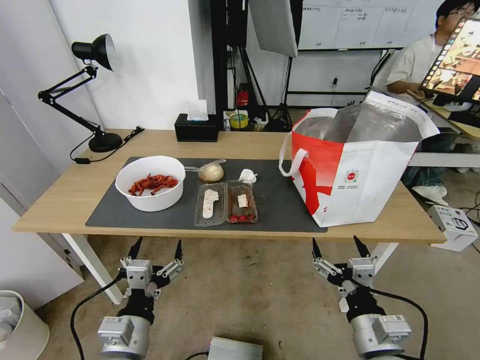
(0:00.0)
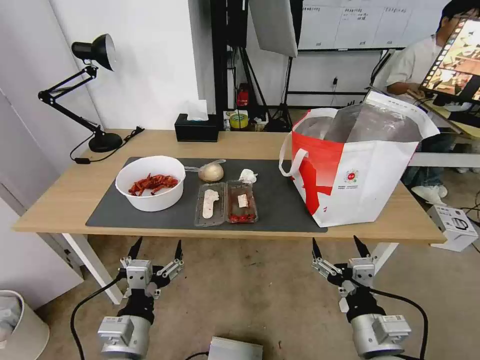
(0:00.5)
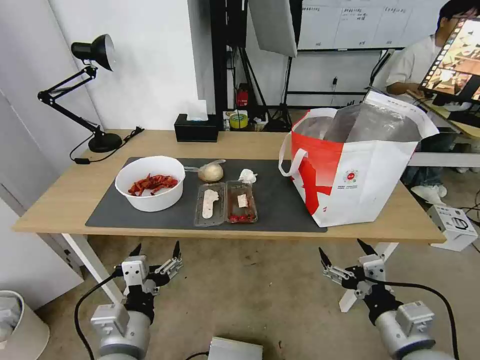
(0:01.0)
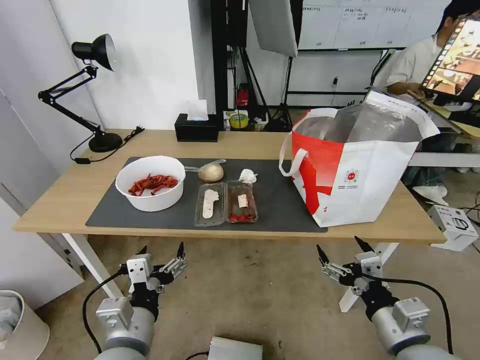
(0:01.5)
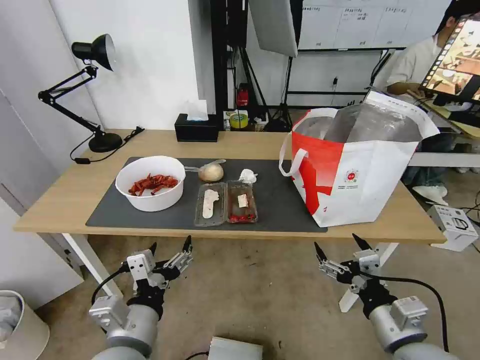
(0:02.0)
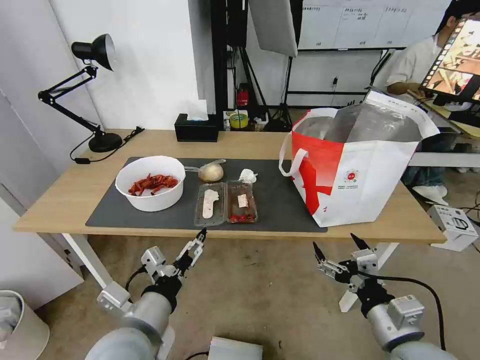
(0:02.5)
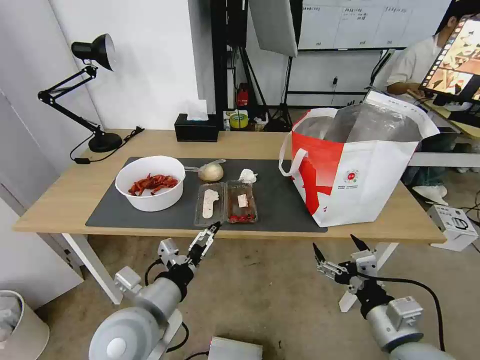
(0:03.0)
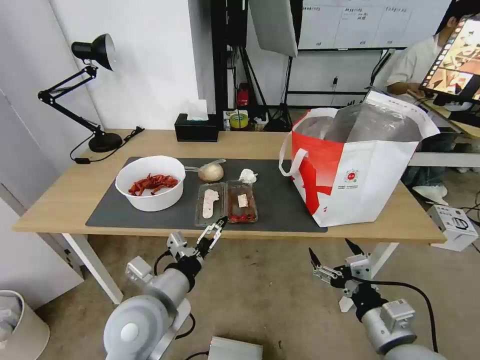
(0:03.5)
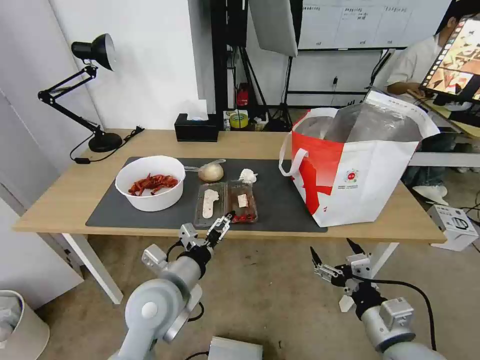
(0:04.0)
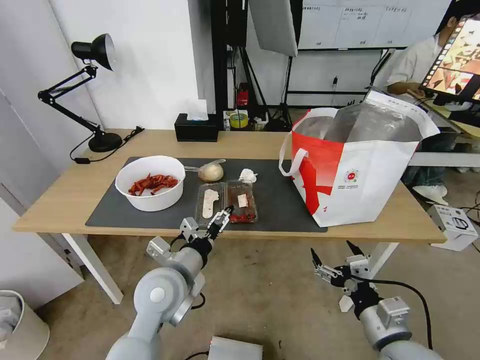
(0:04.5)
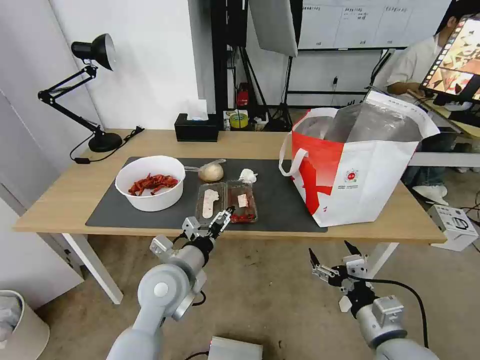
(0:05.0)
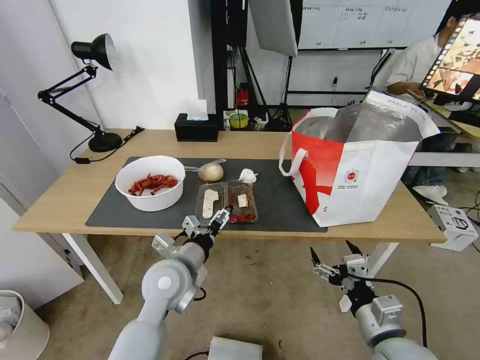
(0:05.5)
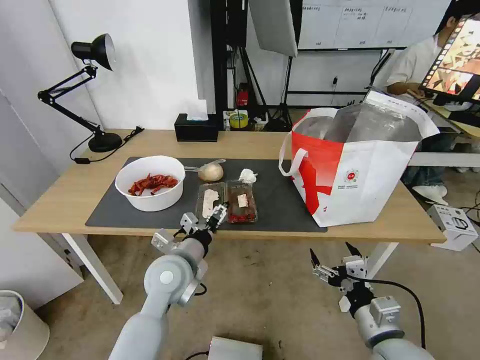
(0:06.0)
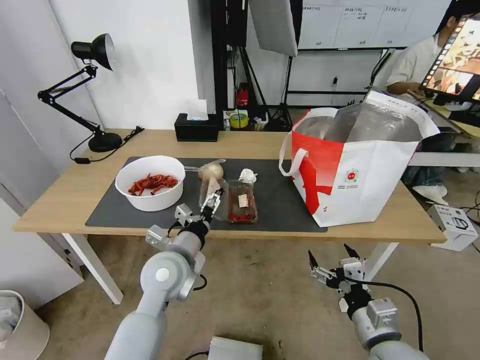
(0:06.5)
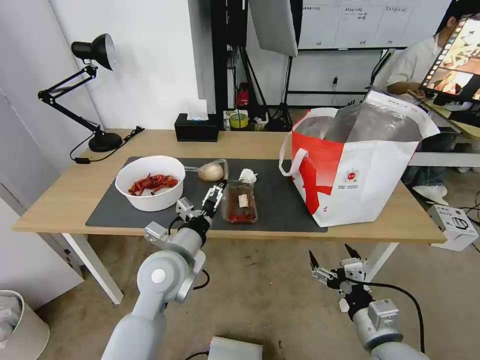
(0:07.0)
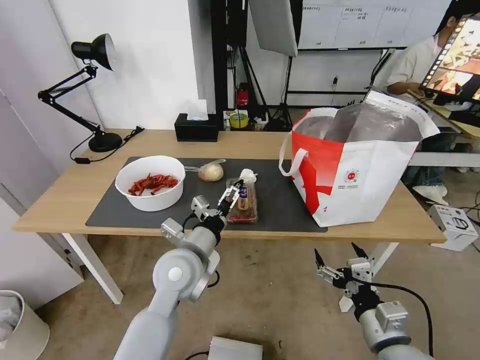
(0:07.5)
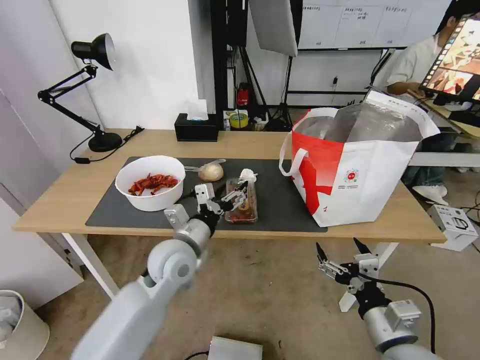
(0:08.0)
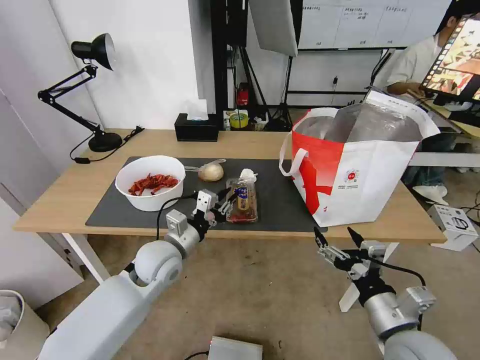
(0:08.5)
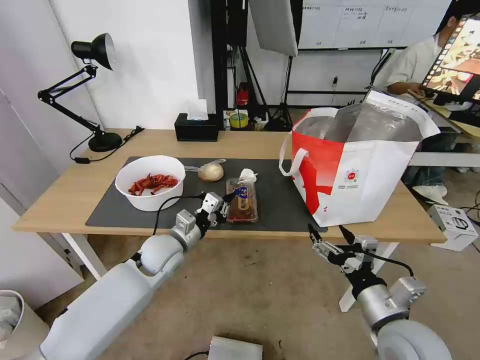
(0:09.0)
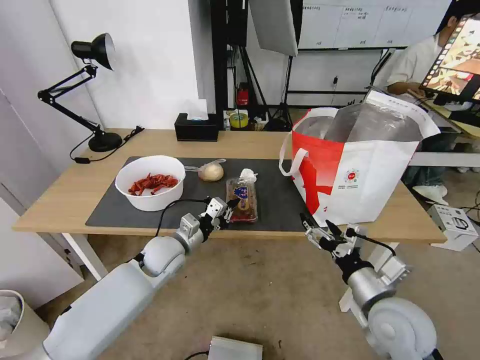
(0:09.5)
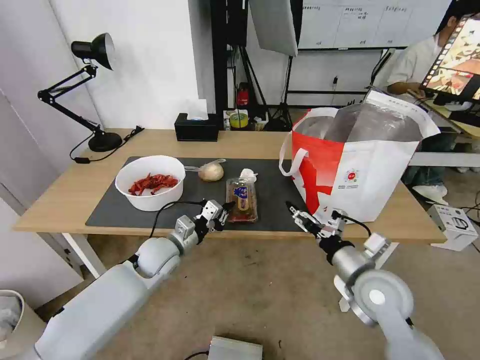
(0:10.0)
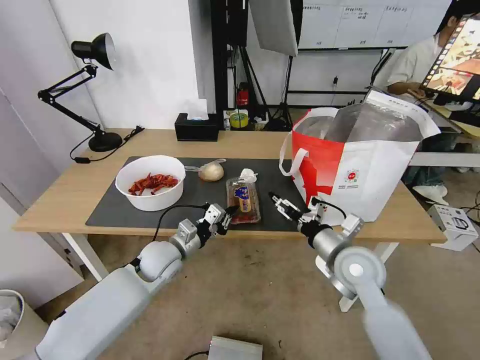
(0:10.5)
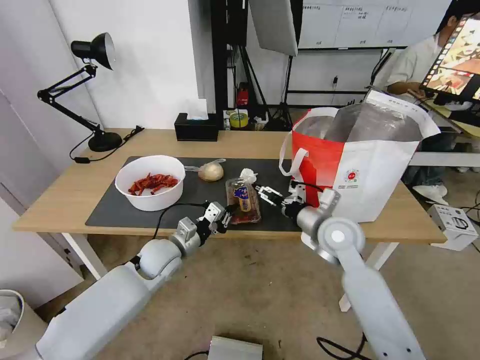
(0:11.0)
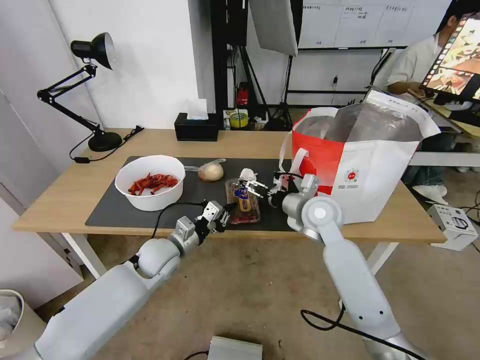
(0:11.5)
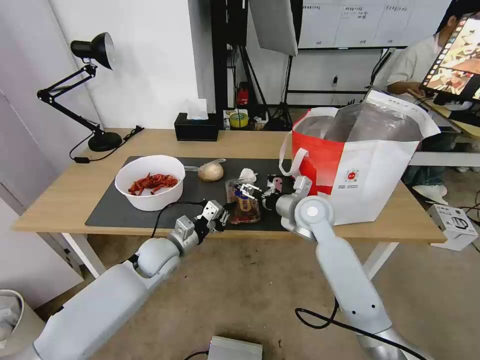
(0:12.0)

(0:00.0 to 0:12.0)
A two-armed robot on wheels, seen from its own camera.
Task of the whole recording: Pick up the trash from the table and place it into the takeout bag.
0:02.0 - 0:04.0: The left gripper travels forward by about 10 cm.
0:04.0 - 0:06.0: The left gripper moves forward, roughly 5 cm.
0:08.0 - 0:10.0: The right gripper moves forward, about 10 cm, while the left gripper heads downward and to the left, covering roughly 10 cm, and closes its fingers.
0:10.0 - 0:12.0: The right gripper moves forward and to the left, some 20 cm.

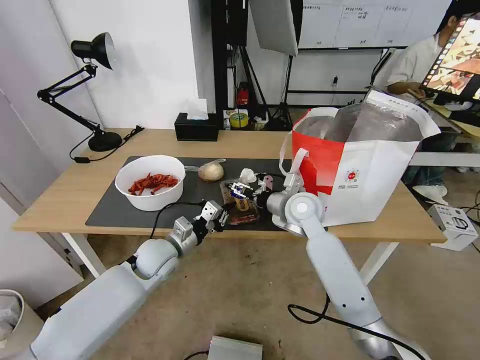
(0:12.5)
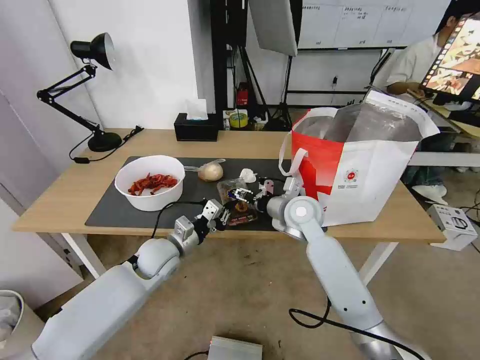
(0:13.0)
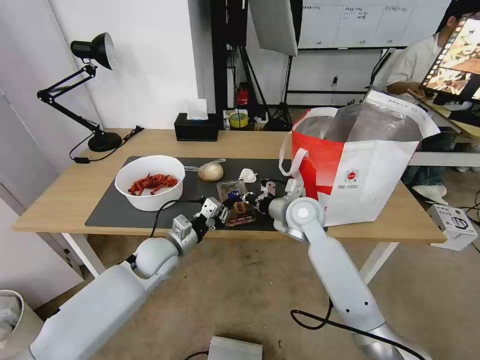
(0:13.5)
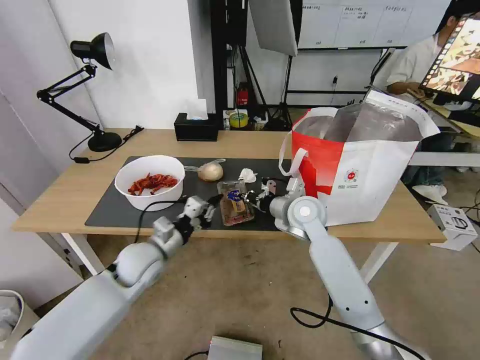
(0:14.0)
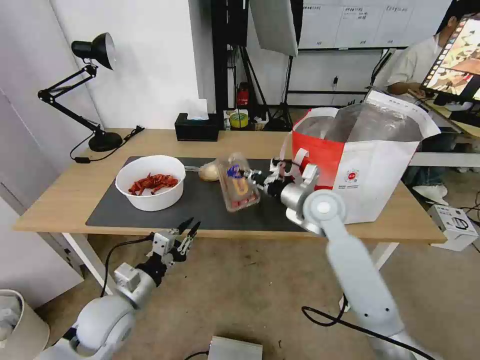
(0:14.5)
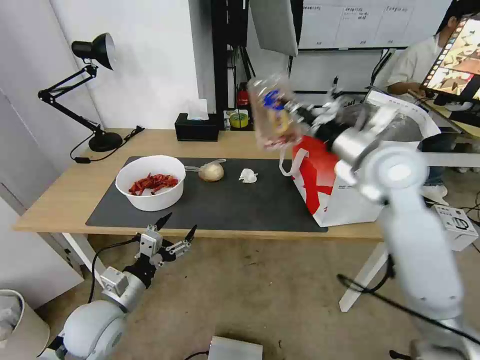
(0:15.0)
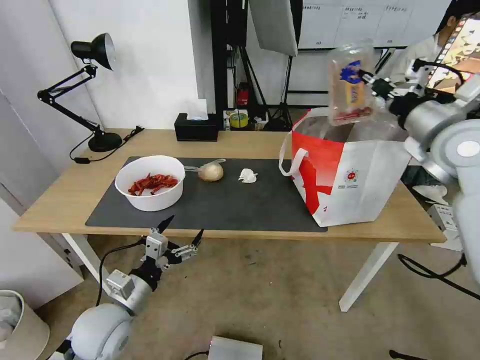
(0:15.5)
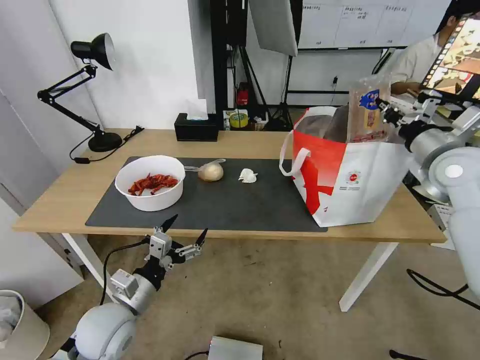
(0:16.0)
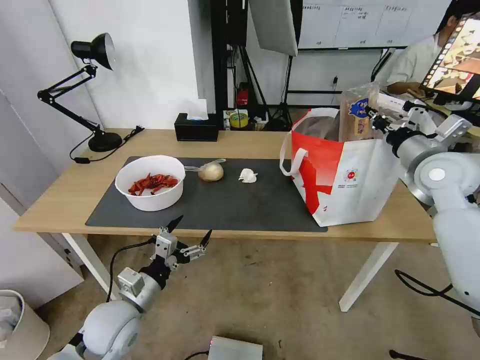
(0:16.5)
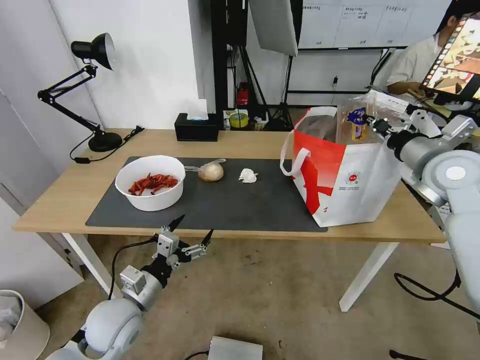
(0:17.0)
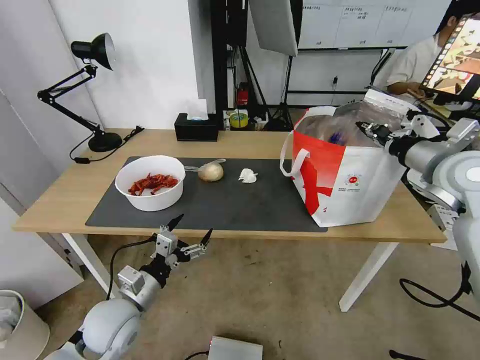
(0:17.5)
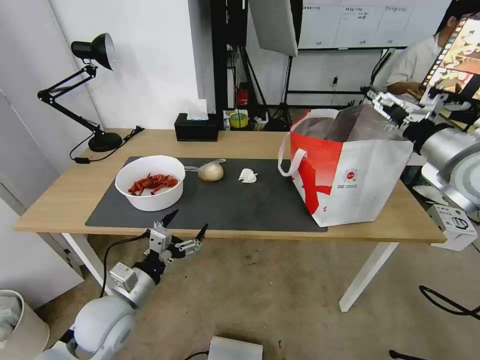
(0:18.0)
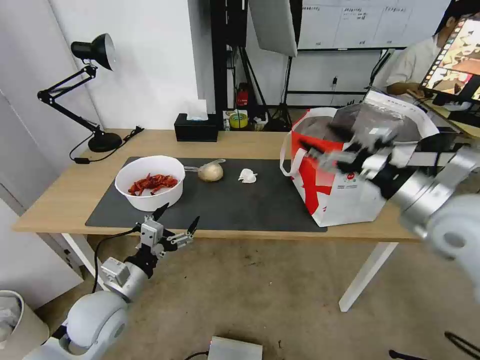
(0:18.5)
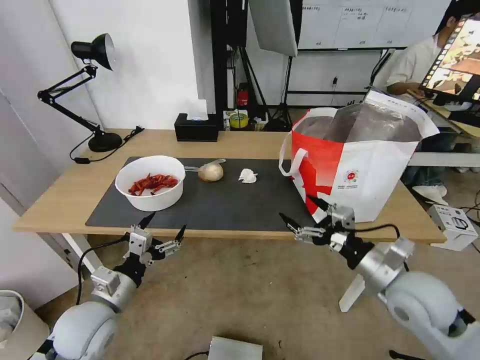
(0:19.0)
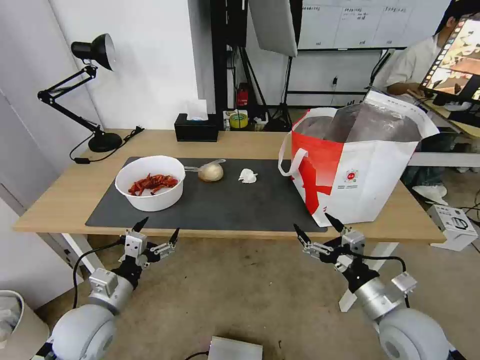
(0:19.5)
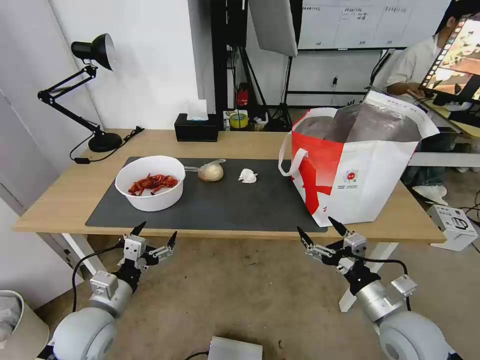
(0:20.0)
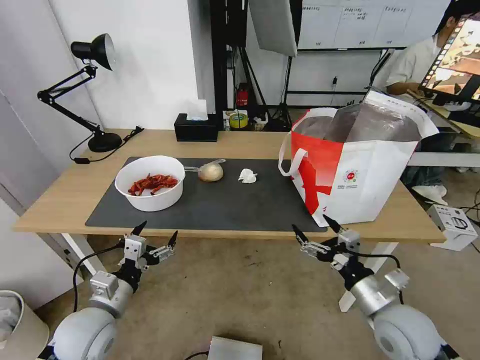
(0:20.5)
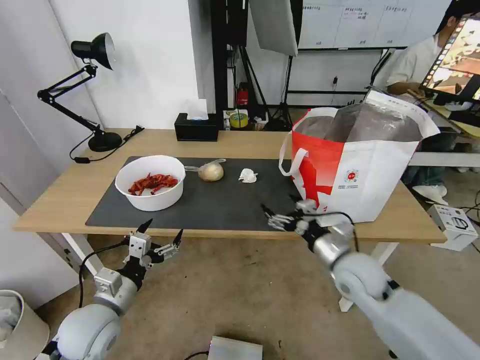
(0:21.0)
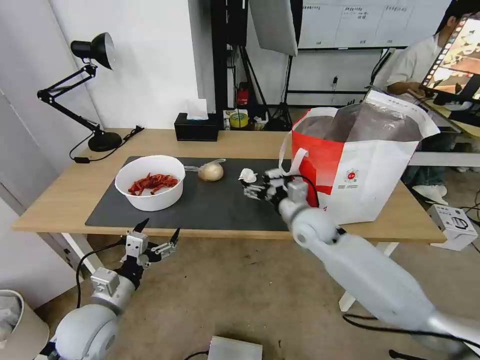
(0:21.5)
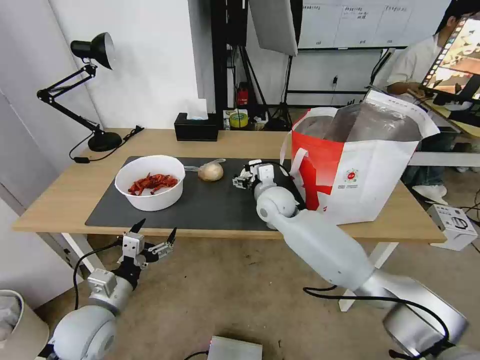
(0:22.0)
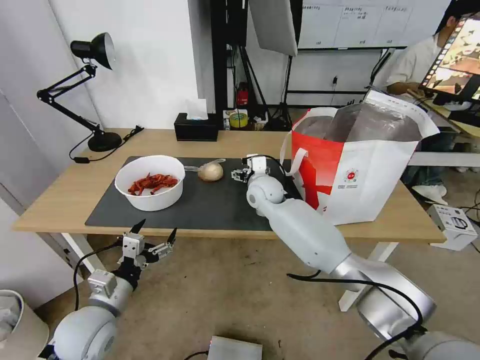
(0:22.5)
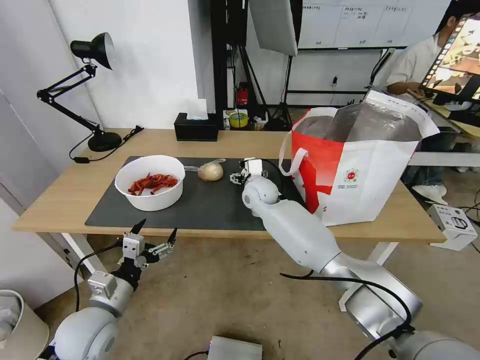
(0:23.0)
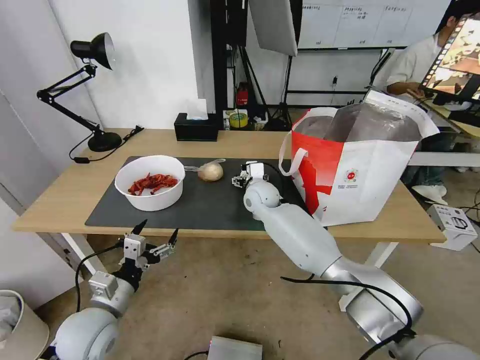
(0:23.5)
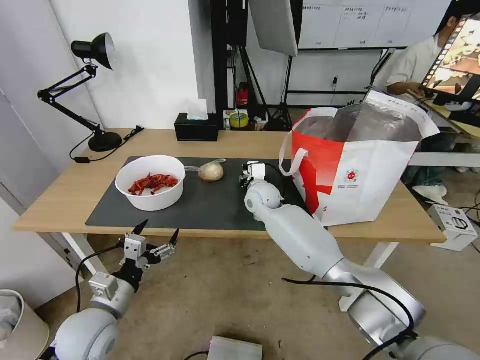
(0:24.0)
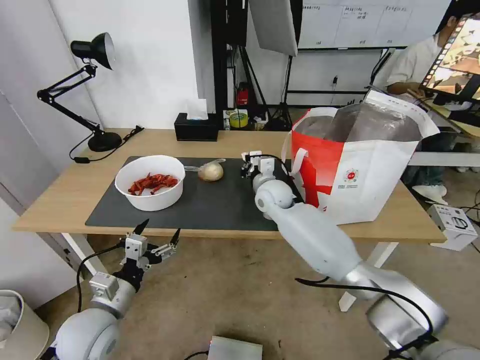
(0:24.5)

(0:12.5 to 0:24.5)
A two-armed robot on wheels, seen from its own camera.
Task of the whole recording: Pick up the trash from the table and place it into the takeout bag.
0:12.5 - 0:14.5: The left gripper goes roughly 15 cm backward and to the left, while the right gripper ends up roughly 5 cm from where it was, and closes.
0:14.5 - 0:16.5: The right gripper shifts some 25 cm to the right and upward, while the left gripper opens its fingers.
0:16.5 - 0:18.5: The right gripper shifts approximately 15 cm backward and to the left, and opens.
0:18.5 - 0:20.5: The right gripper travels downward and backward by about 25 cm.
0:20.5 - 0:22.5: The right gripper travels forward and to the left by about 40 cm.
0:22.5 - 0:24.5: The right gripper closes.

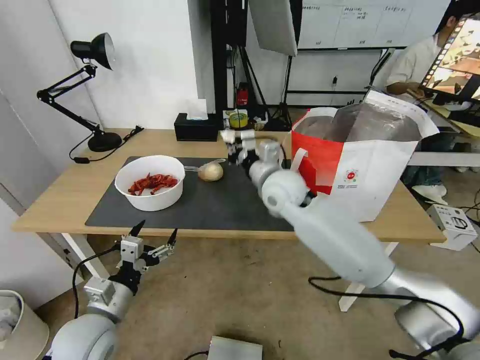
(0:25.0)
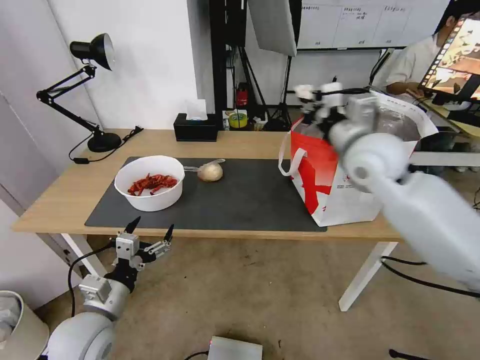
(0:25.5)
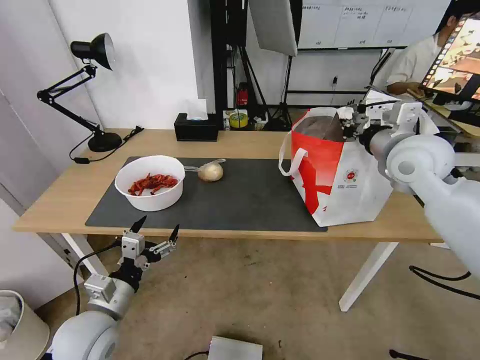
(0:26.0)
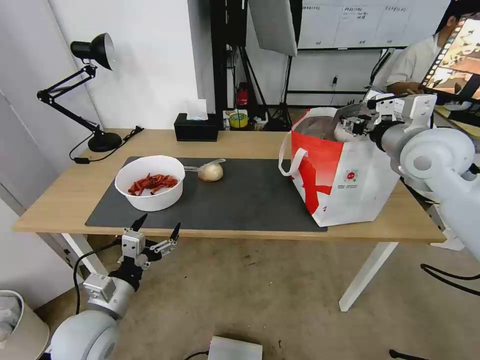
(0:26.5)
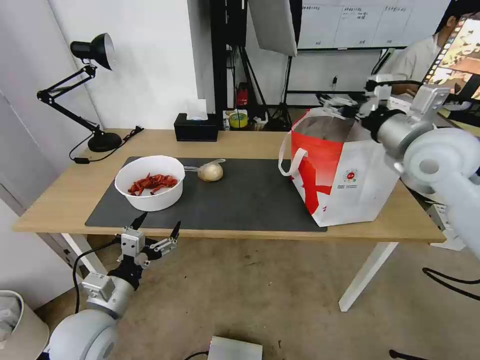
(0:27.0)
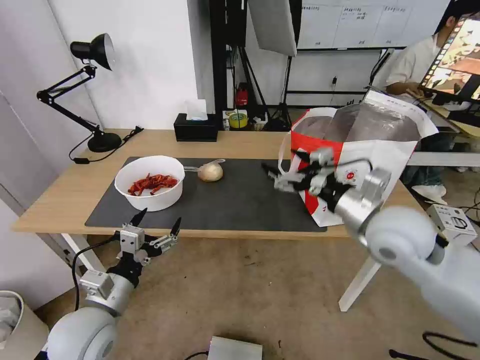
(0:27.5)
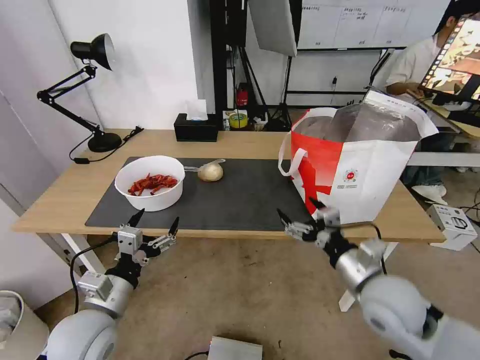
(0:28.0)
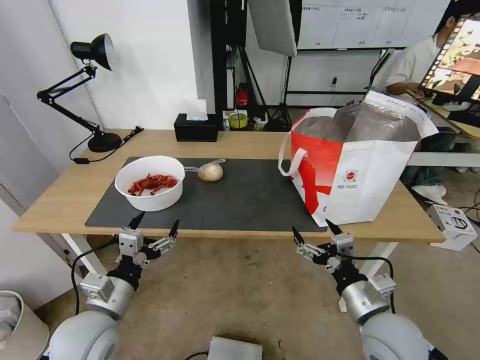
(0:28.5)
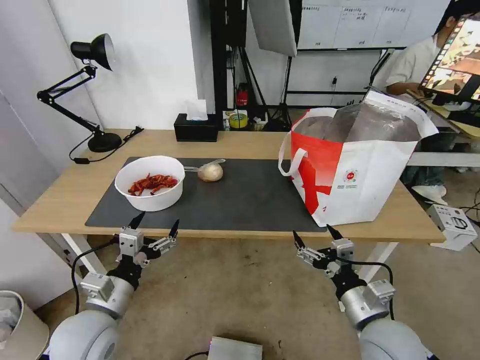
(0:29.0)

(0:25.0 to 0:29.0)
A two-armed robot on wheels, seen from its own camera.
Task of the whole recording: Pick up the trash from the table and place it into the takeout bag.
0:25.0 - 0:27.0: The right gripper shifts some 25 cm to the right and upward, and opens.
0:27.0 - 0:29.0: The right gripper goes approximately 35 cm downward and backward.
